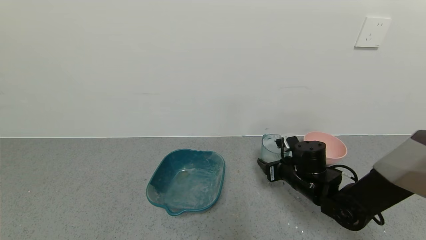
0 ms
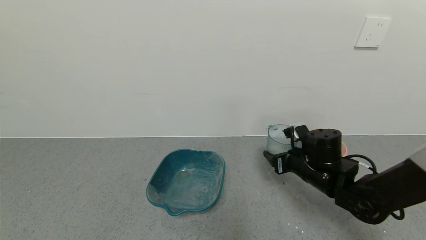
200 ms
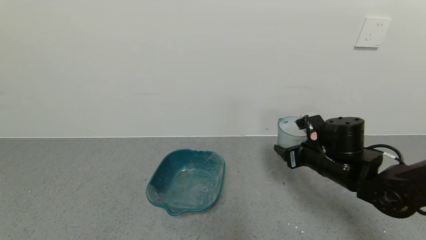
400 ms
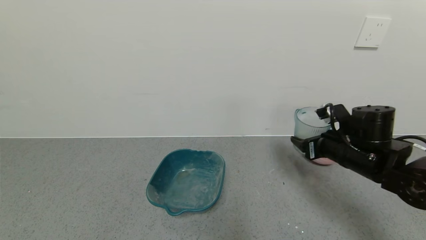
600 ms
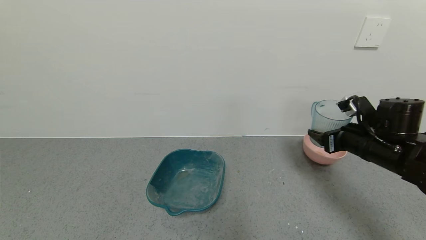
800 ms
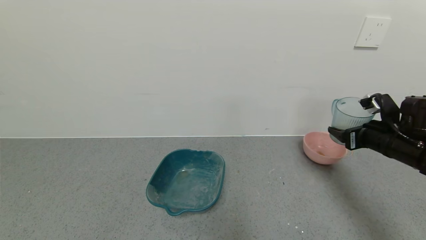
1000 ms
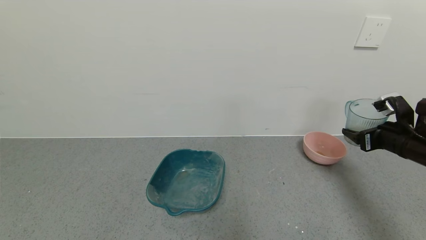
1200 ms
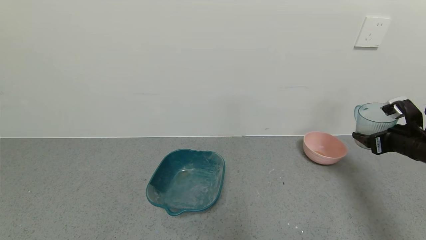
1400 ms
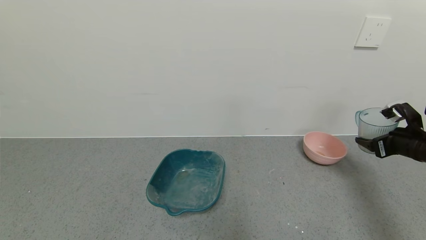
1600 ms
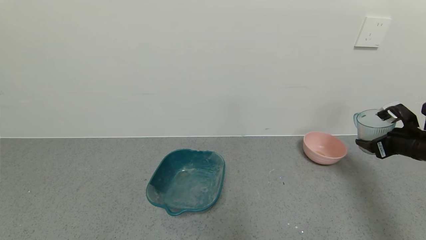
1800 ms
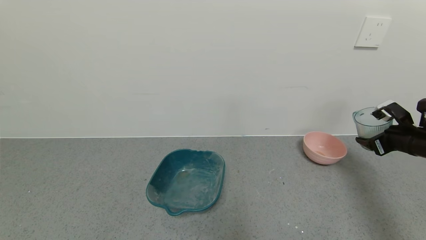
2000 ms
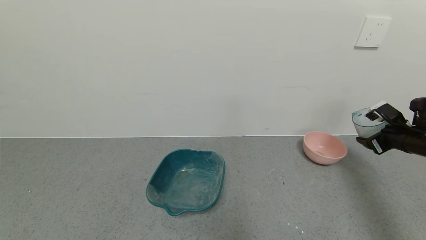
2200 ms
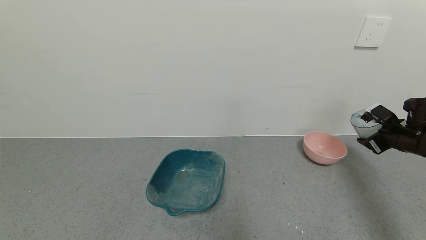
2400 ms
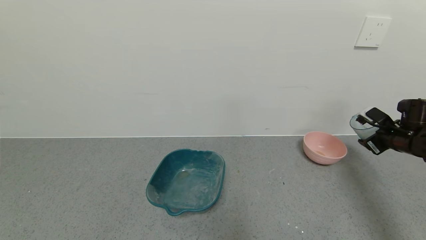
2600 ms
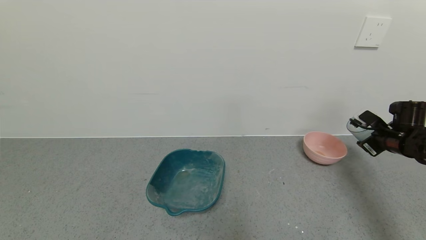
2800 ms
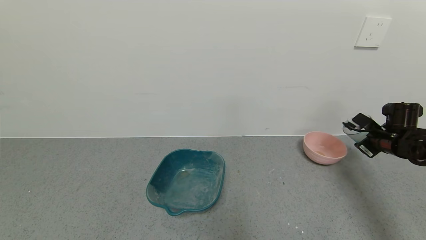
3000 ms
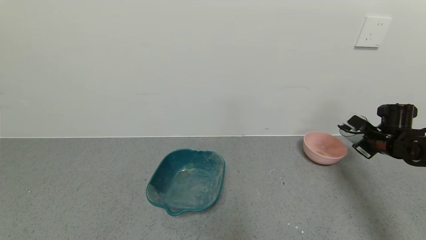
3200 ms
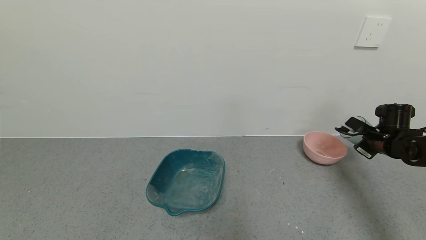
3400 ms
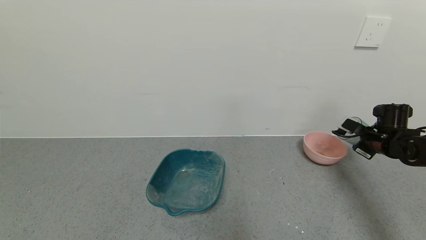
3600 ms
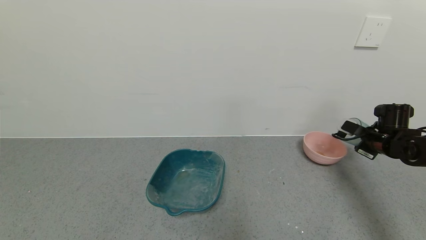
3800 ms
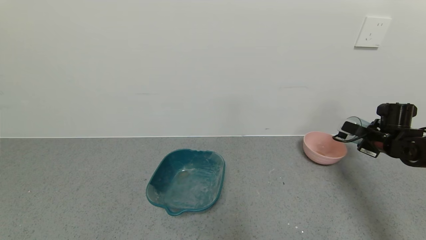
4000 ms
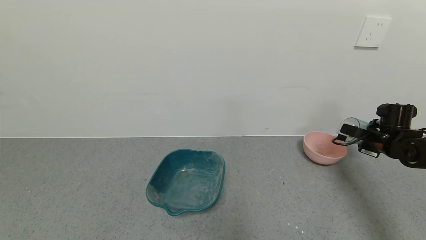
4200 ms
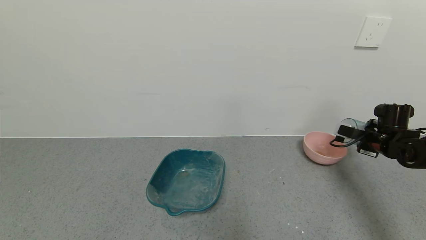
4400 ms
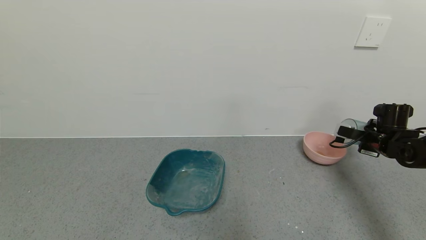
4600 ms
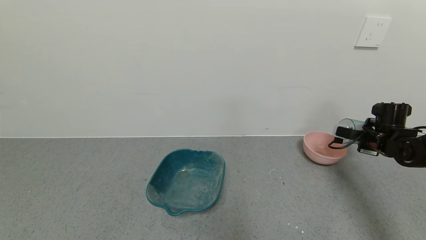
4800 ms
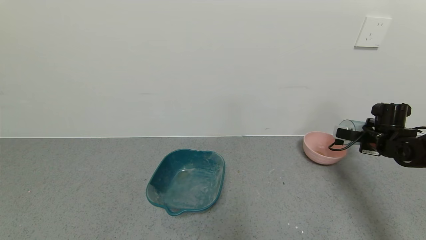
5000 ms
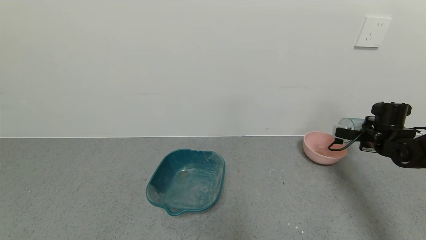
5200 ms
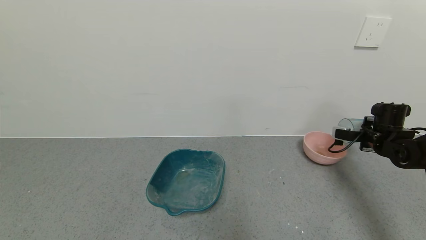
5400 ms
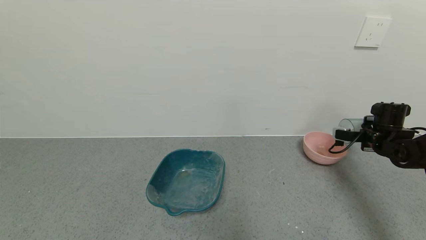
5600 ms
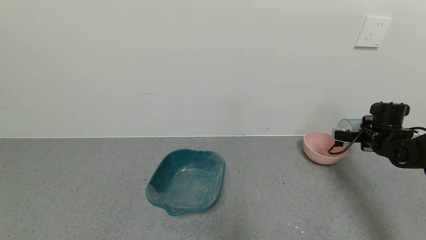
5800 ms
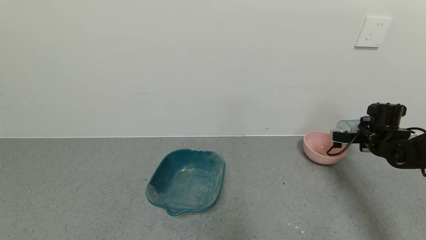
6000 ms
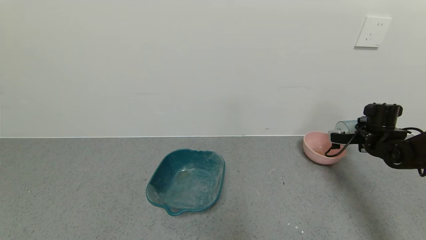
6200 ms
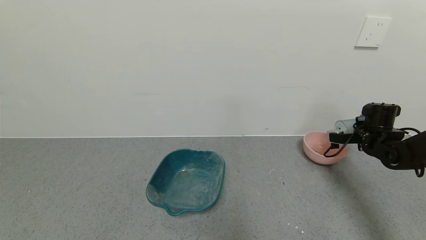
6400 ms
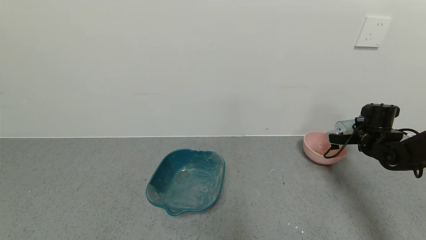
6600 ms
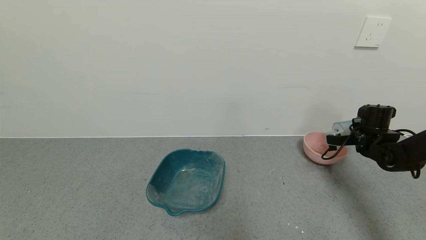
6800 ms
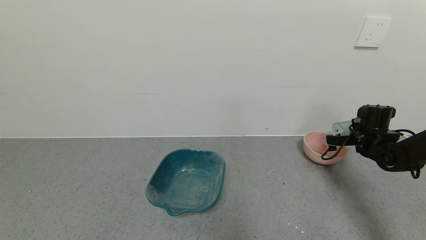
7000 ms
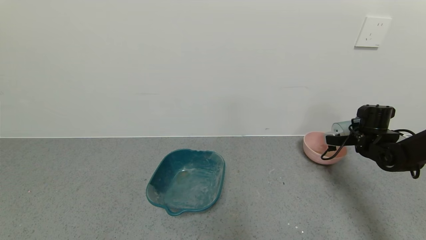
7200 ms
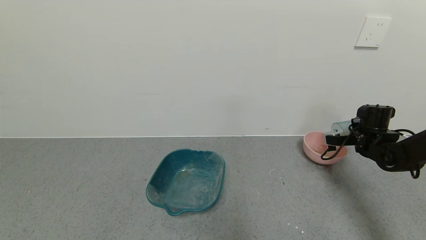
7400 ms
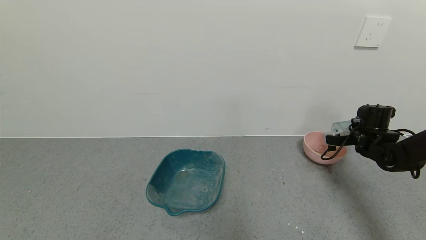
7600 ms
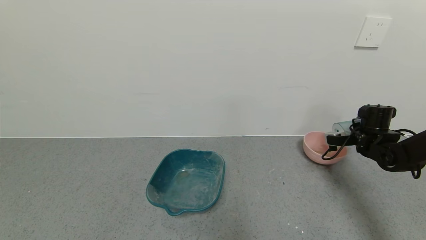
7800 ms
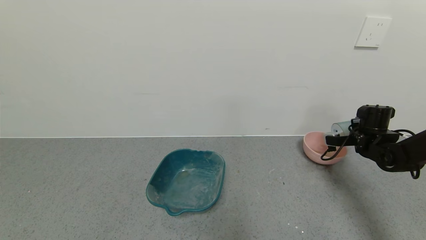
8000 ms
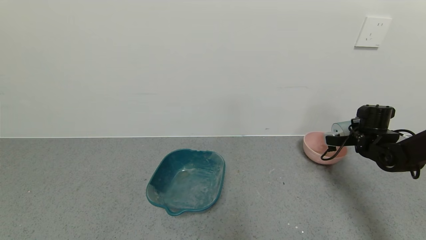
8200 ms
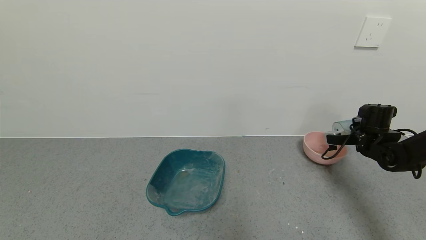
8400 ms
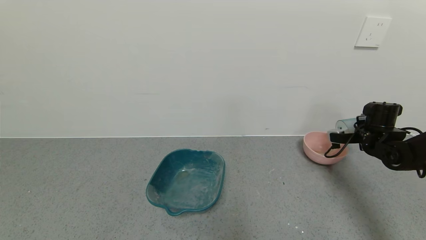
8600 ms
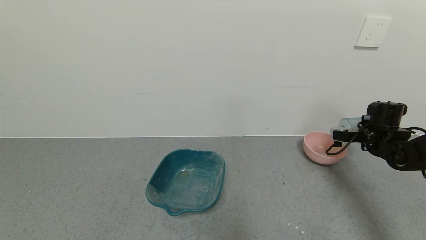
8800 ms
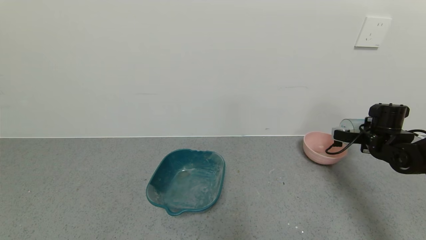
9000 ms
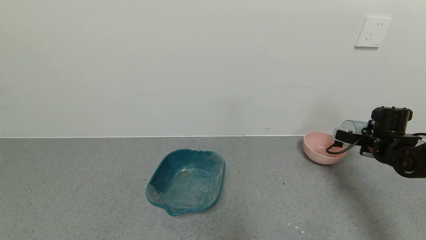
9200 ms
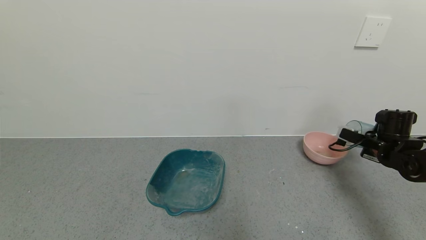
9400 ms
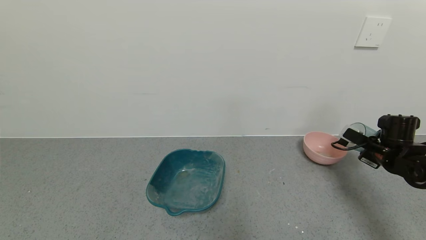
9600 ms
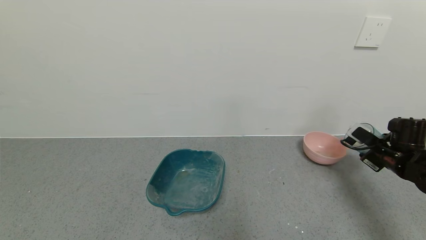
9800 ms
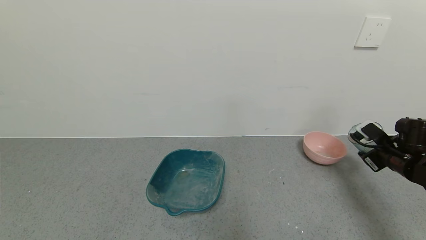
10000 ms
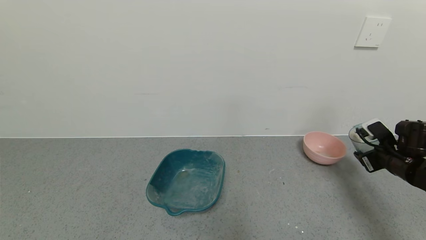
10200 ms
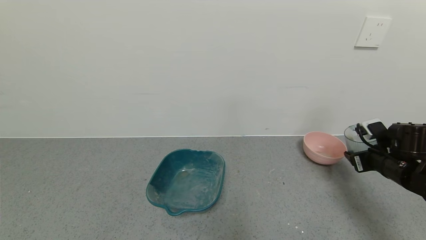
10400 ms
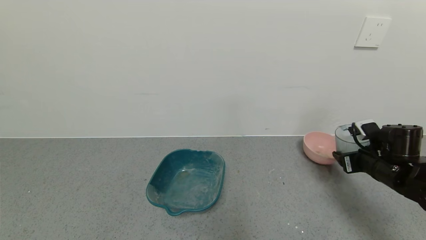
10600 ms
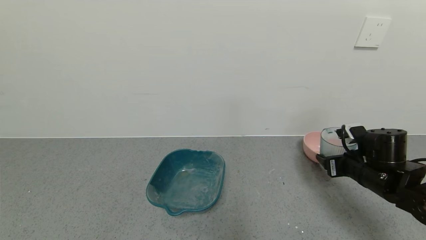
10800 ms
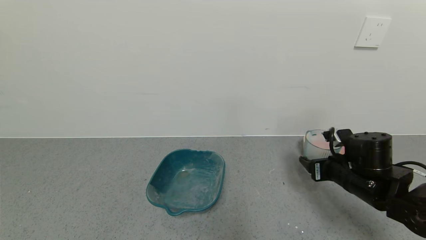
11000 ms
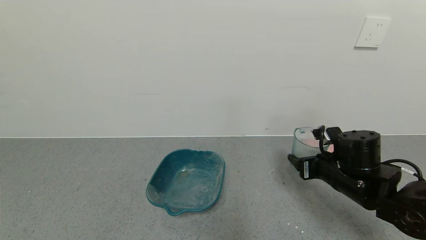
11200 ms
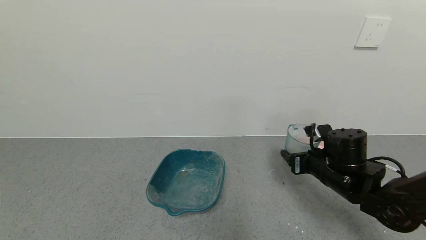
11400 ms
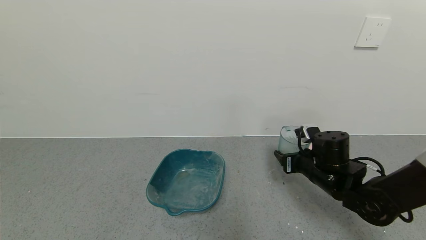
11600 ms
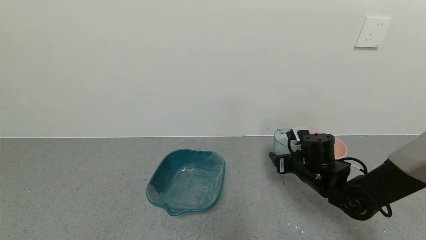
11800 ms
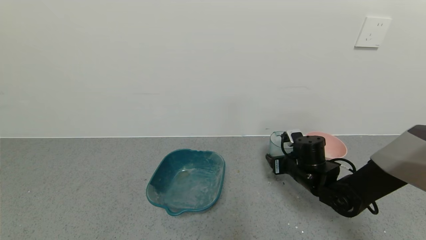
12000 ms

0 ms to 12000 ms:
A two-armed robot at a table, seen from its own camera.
Task of the whole recording: use a gripper to pick up the cup and pour the powder into a bowl or tray.
Step, 0 ms to 8600 ms: Pour the coffee powder into the pink bowl with right gripper.
0 ms to 1600 ms: The right gripper is displaced to the right by about 25 cm.
1600 ms to 3000 ms: The right gripper goes roughly 5 cm forward.
6000 ms to 9000 ms: The grippers stay close to where they were, moving slightly.
9000 ms to 10400 ms: The right gripper moves backward, roughly 10 cm.
10400 ms to 12000 ms: The right gripper heads to the left, covering roughly 15 cm.

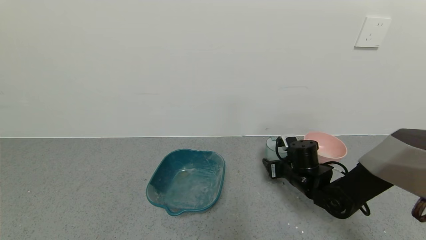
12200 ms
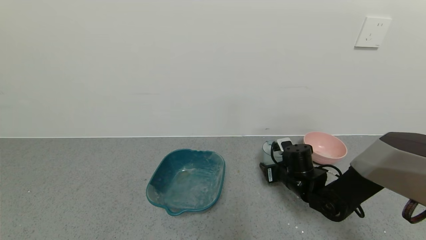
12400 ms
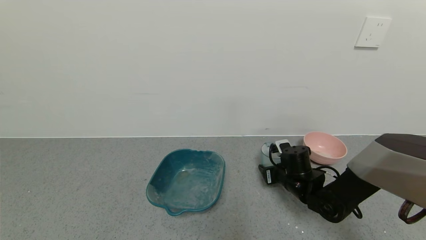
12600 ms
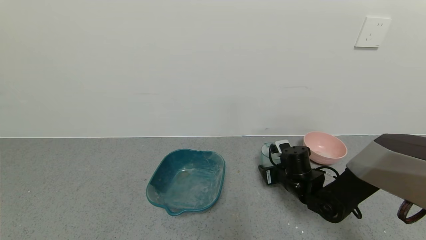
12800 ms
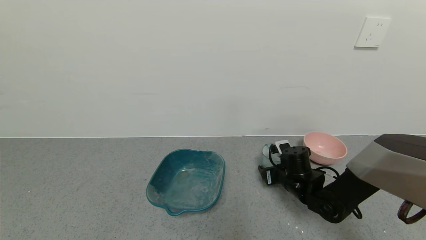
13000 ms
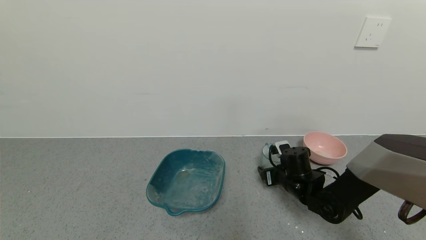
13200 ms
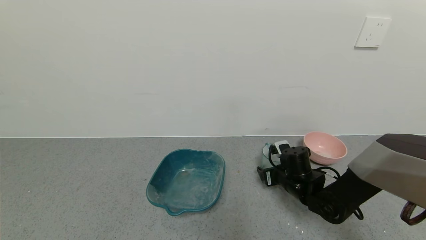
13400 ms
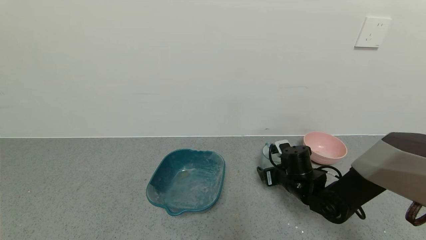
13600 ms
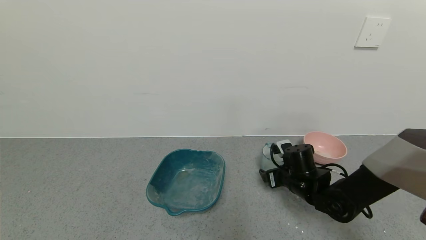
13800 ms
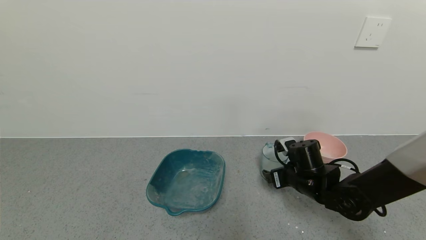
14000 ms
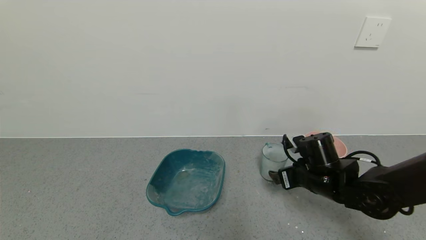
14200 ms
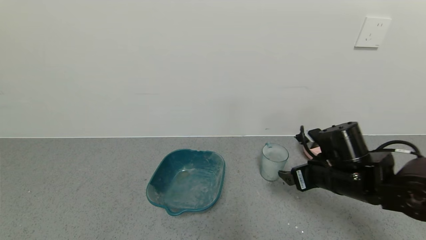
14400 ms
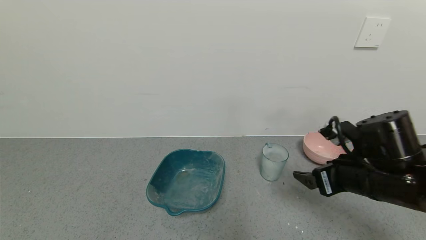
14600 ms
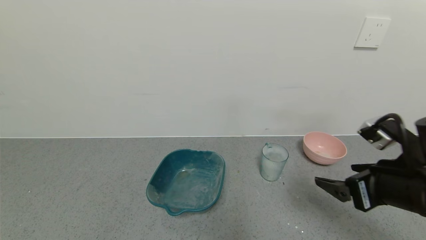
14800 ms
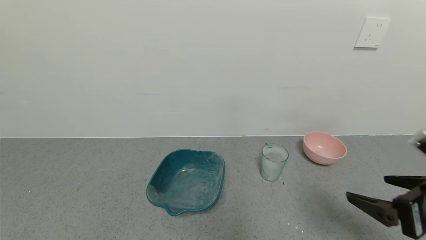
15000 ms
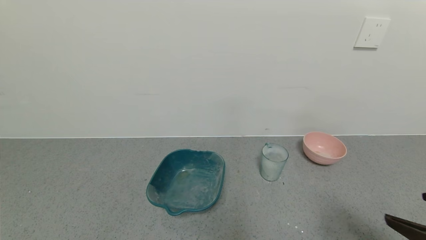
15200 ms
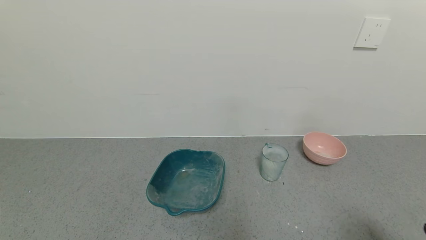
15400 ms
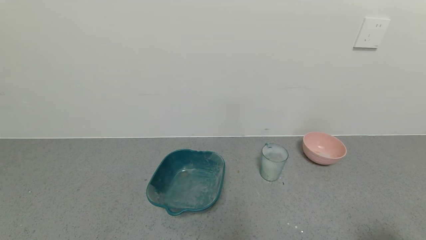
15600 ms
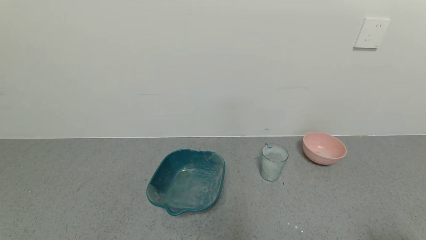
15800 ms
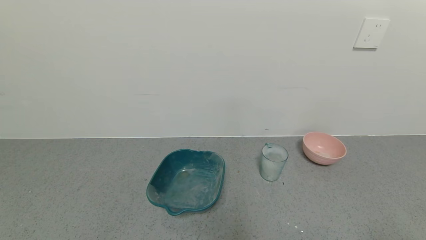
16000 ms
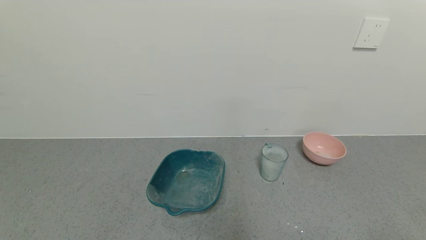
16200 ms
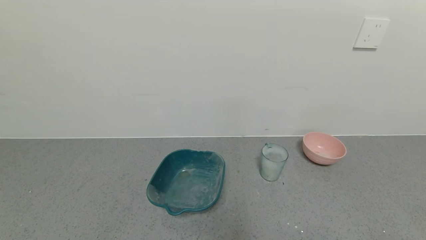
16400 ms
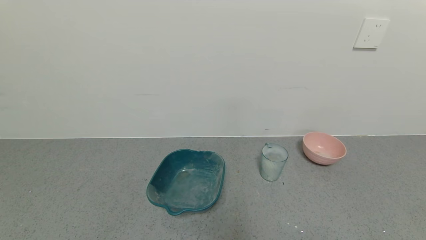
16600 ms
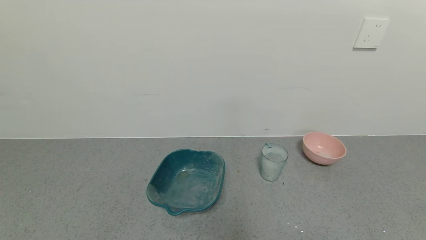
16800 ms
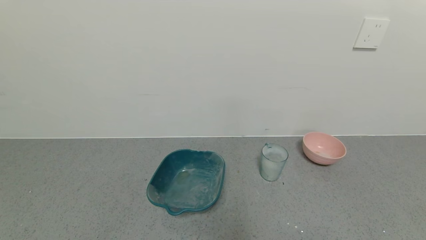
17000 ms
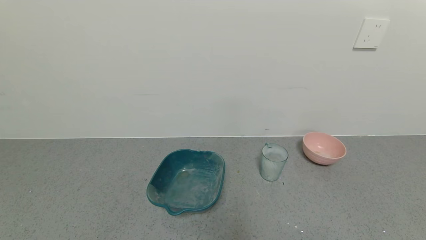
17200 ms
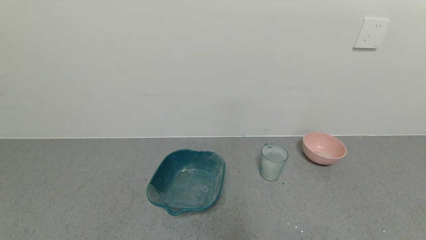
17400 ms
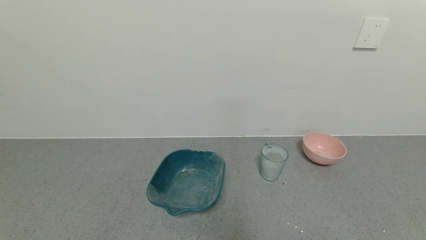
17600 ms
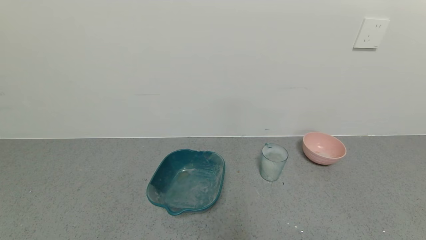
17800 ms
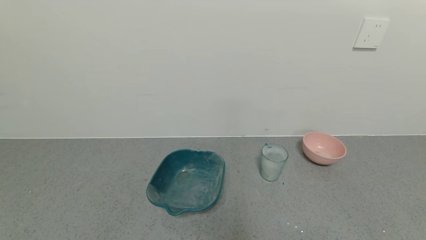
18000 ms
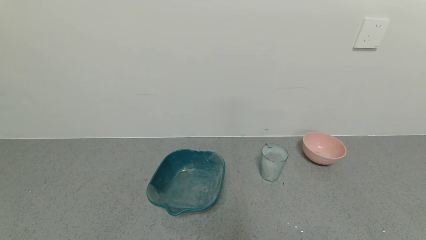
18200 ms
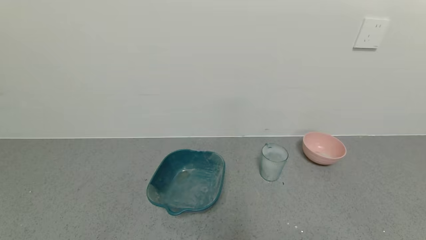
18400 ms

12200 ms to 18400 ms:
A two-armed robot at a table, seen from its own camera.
Task of the whole recording: use a gripper to pick up the cup and pour the powder into a bowl or tray.
12200 ms to 13800 ms: The right gripper opens its fingers.
13800 ms to 15400 ms: The right gripper travels backward, upward and to the right by some 35 cm.
15400 ms to 16800 ms: The right gripper goes about 10 cm backward and downward.
